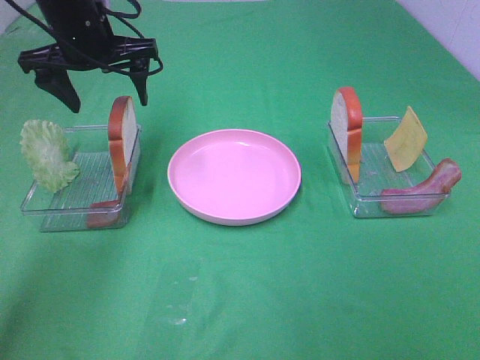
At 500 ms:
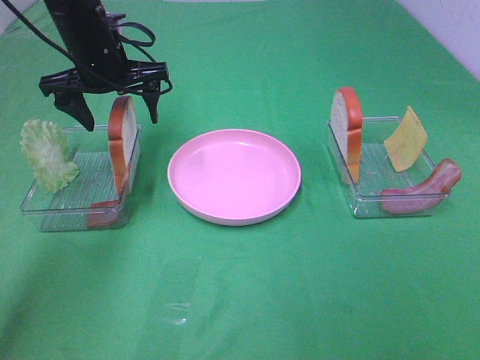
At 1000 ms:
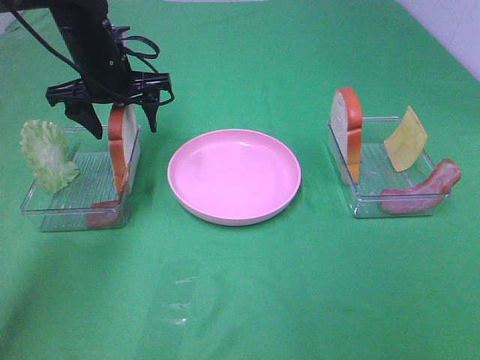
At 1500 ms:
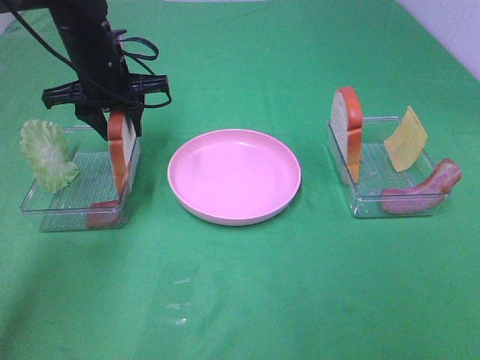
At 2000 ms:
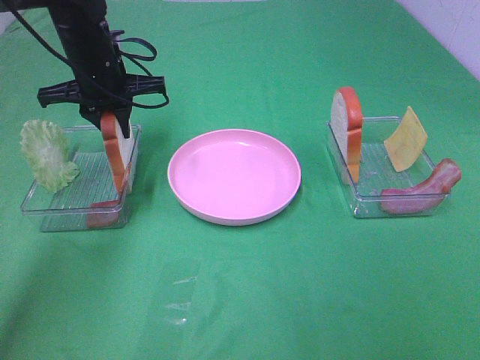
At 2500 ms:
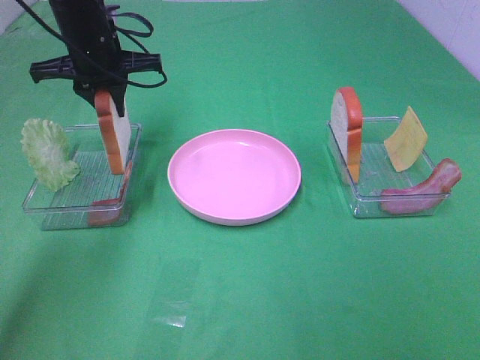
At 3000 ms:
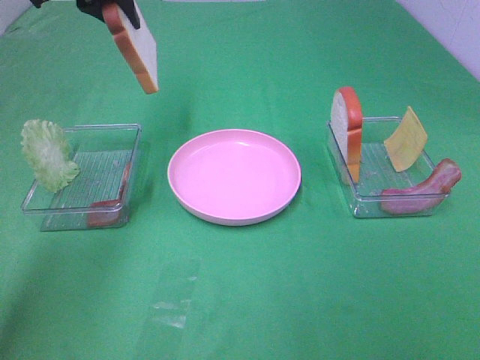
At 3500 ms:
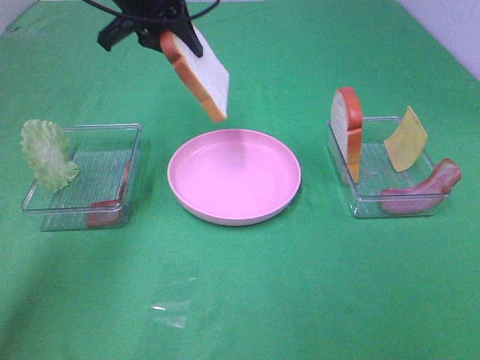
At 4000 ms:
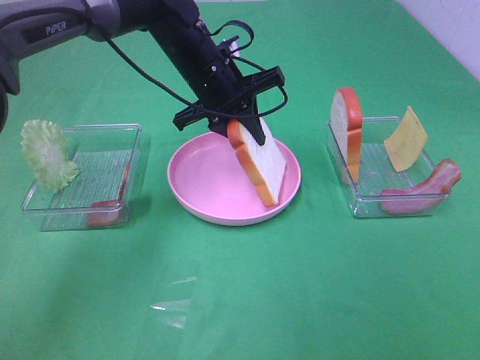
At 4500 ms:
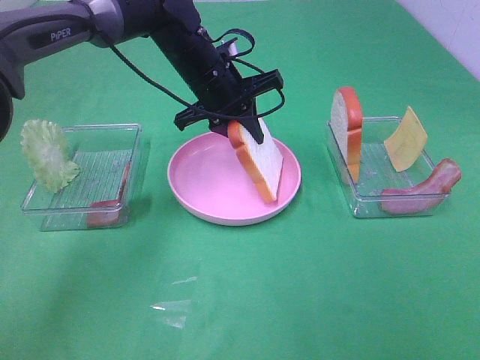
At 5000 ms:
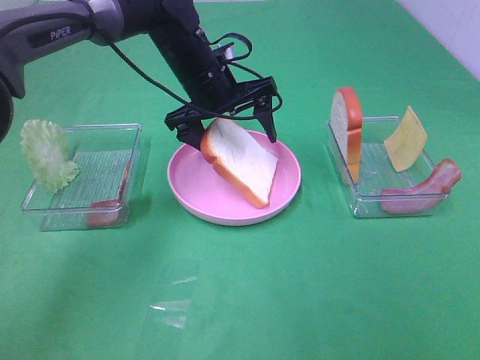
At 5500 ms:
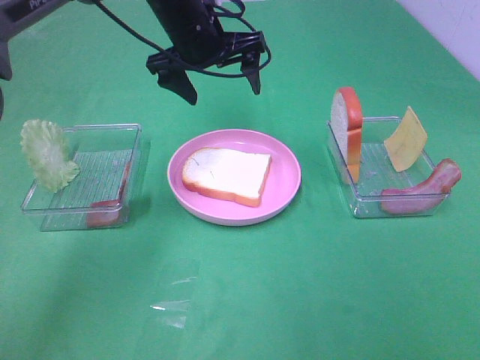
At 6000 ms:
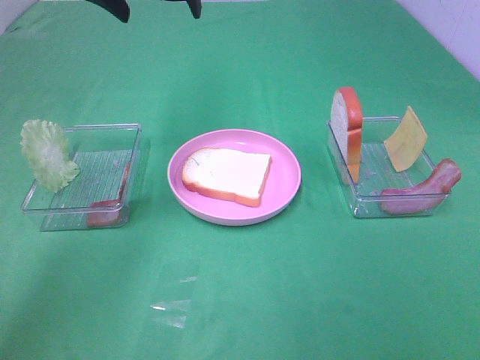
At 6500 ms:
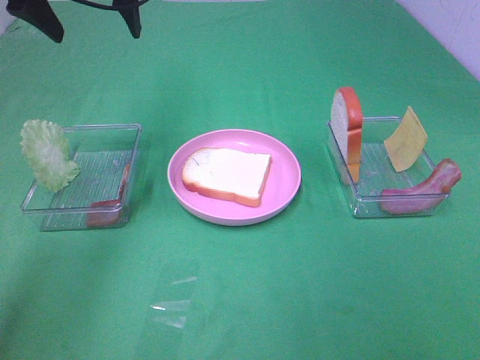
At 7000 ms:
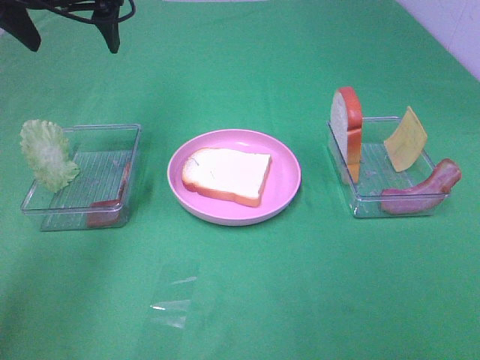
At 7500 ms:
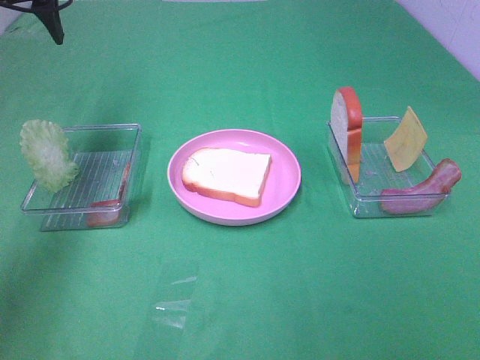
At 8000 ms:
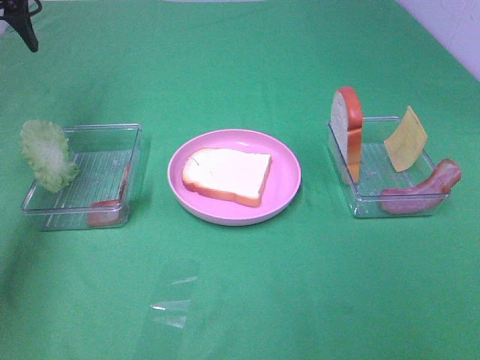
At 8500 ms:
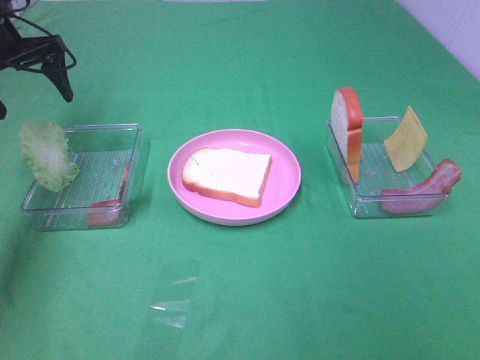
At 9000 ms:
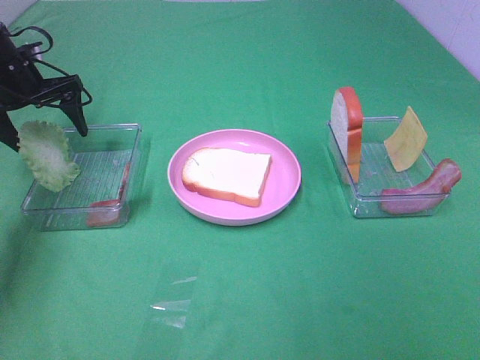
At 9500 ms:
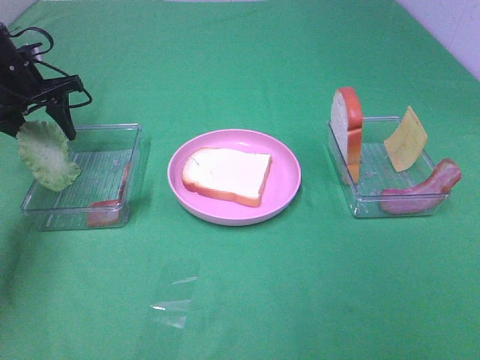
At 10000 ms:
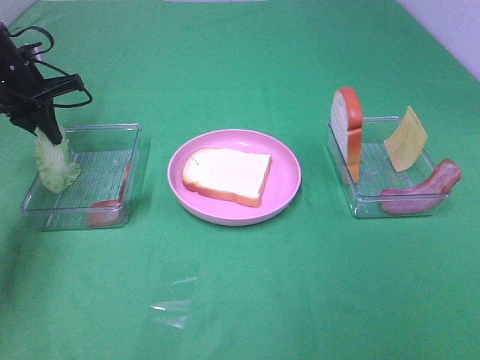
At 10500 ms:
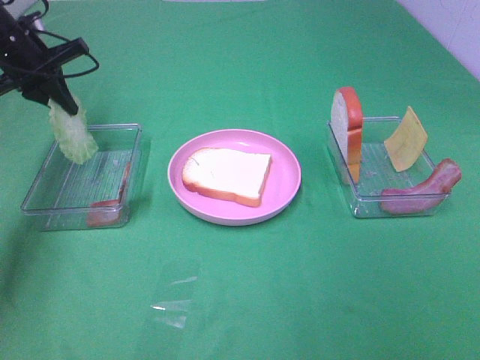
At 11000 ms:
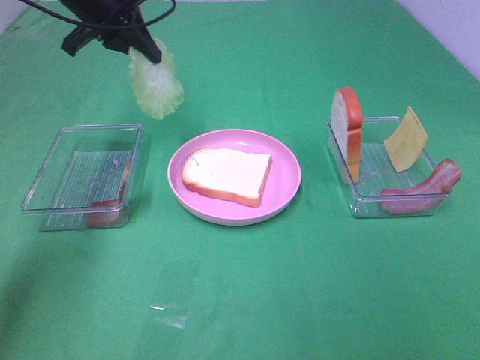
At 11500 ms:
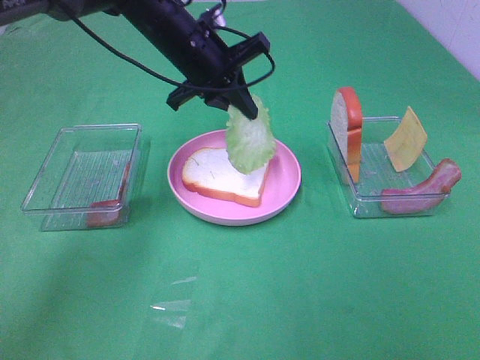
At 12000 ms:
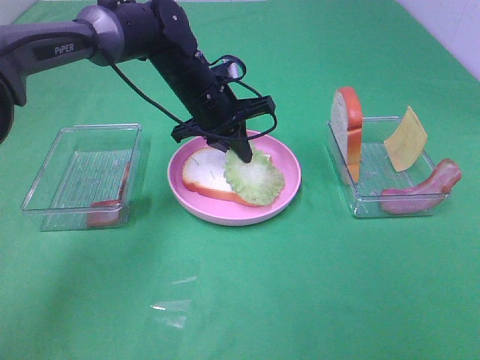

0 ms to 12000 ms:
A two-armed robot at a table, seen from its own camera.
Task of the whole recording: Make sandwiches.
Step, 0 ms to 2000 ms: Left hand:grab the bread slice.
Step, 2500 ms to 5000 ms: Left hand:place the bread slice on the plate.
Step, 5500 ms to 10000 ms: Left hand:grab the lettuce slice.
0 ms to 2000 ms: The left gripper shifts some 5 cm downward, and closes up.
2000 ms to 4000 ms: The left gripper travels to the right by approximately 15 cm, and reaches some 15 cm upward, then returns.
4000 ms to 6000 ms: The left gripper goes approximately 20 cm upward and to the left, and opens up.
6000 ms to 8000 ms: The left gripper travels to the left by some 20 cm.
8000 ms to 10000 ms: The left gripper travels downward by about 15 cm, and closes up.
10000 ms to 12000 ms: The left gripper shifts some 25 cm to the right.

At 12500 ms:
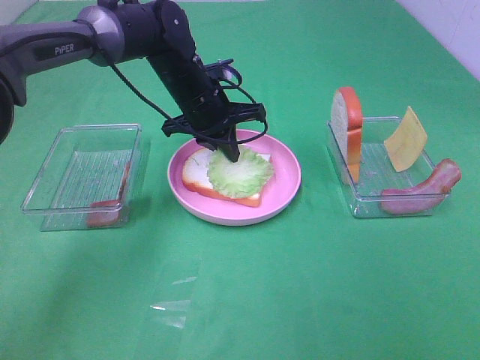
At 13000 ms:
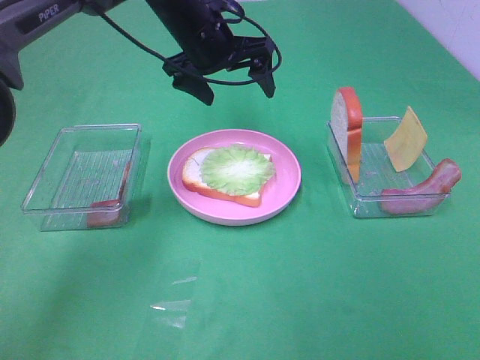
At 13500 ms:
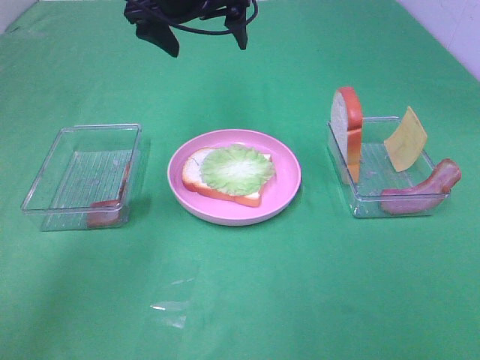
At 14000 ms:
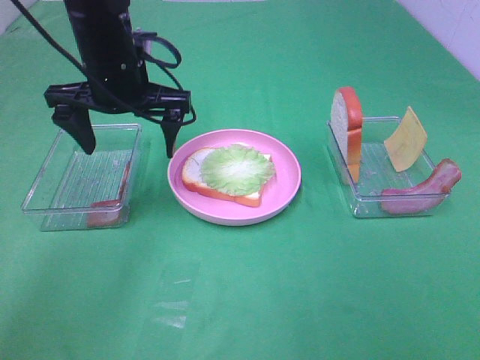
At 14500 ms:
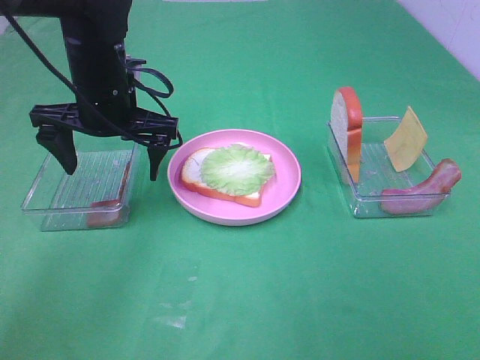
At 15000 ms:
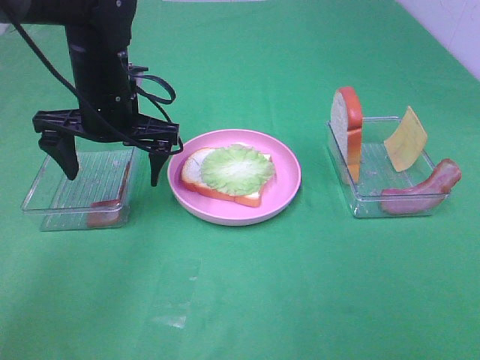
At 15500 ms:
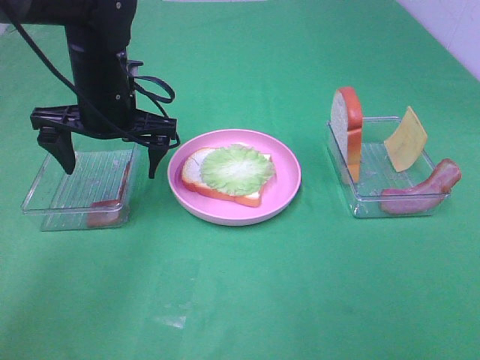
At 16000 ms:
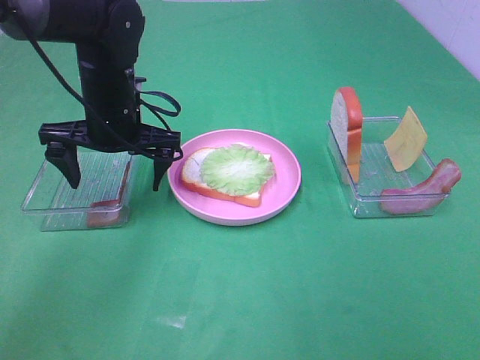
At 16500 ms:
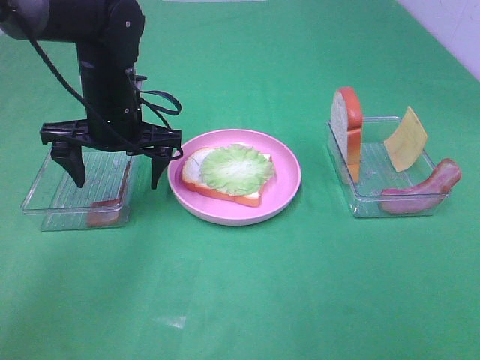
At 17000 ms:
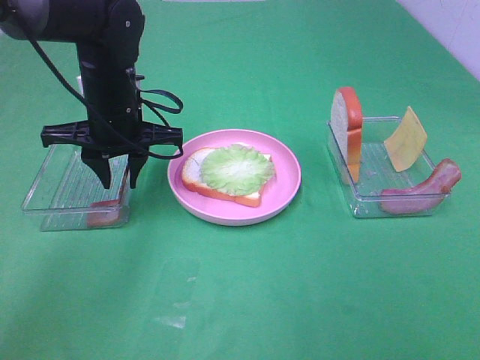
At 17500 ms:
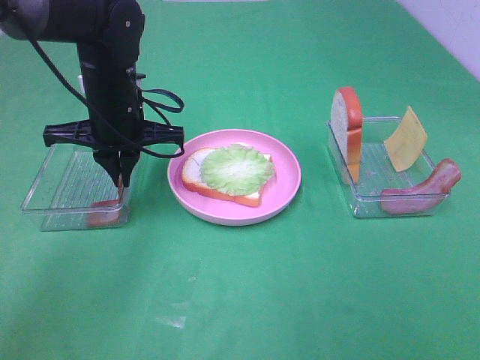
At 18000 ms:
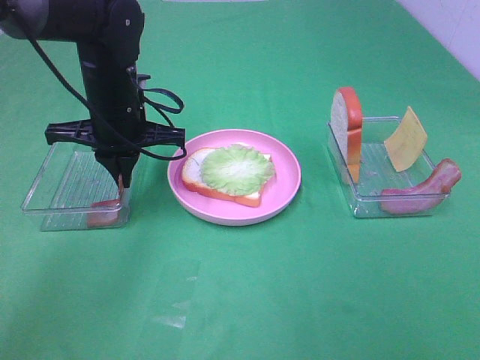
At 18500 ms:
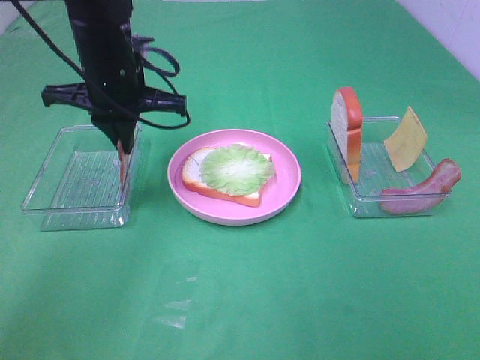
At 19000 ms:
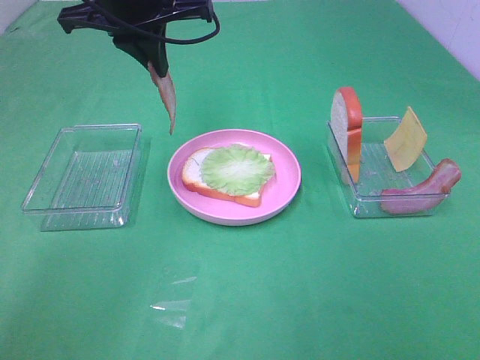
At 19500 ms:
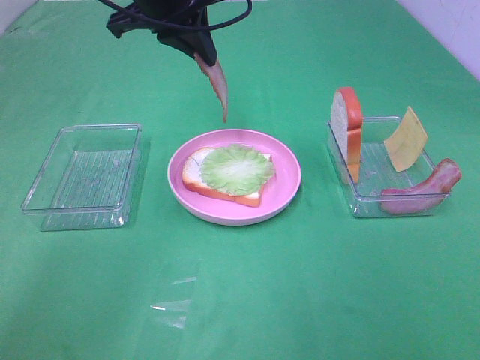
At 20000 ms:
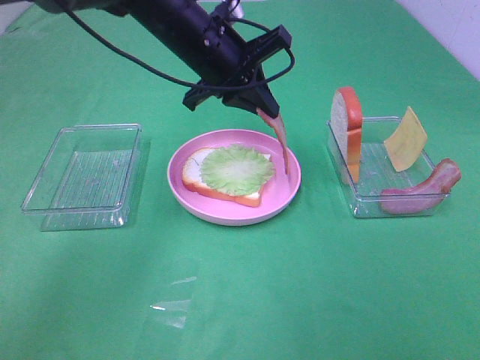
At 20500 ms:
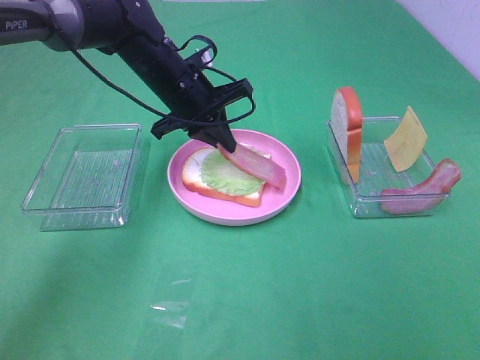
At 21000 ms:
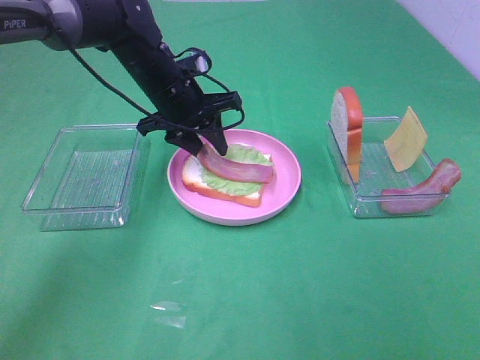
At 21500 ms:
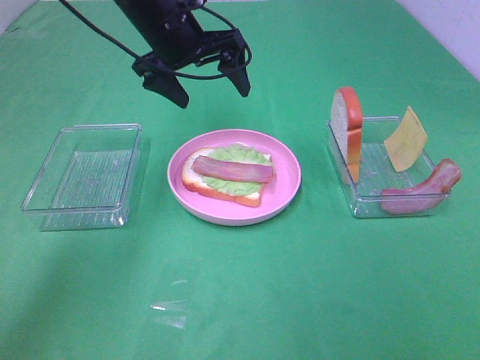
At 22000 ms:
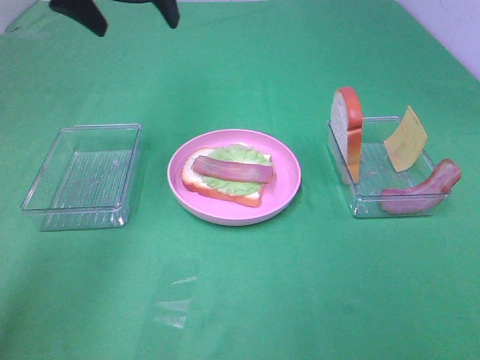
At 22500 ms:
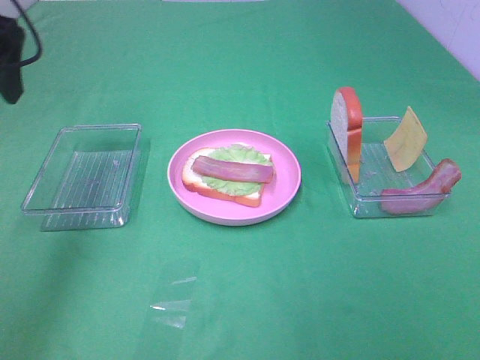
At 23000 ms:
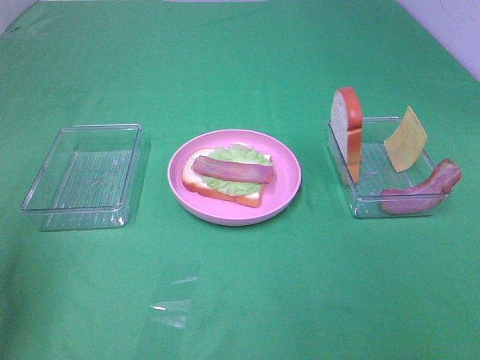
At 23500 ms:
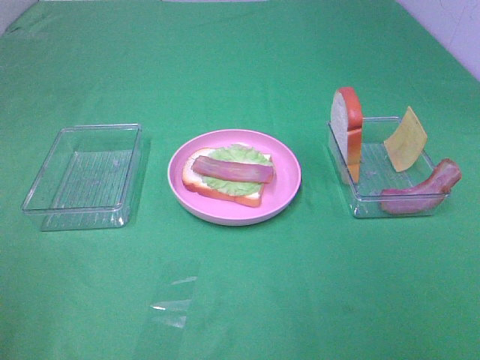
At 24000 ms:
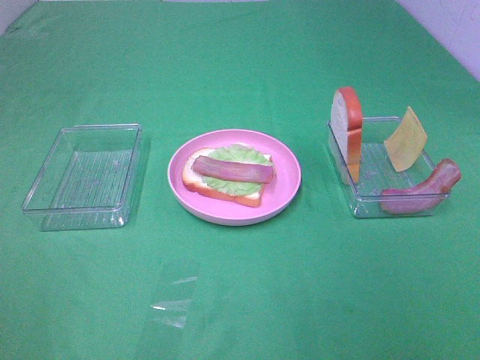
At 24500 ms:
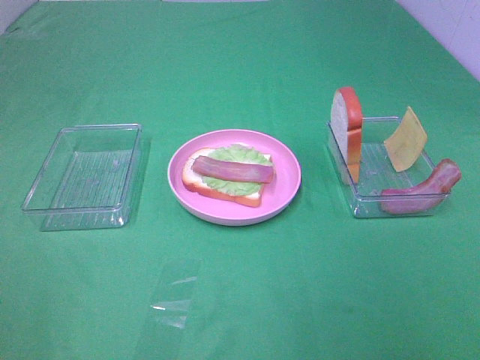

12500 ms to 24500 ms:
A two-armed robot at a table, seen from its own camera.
Task of the whole recording: Make sandwiches.
Step, 13000 ms to 18000 ms: Left hand:grab the bacon.
Step, 18500 ms to 21000 ms: Left hand:place bacon on lettuce slice.
12500 ms to 14500 ms: The left gripper shifts roughly 15 cm to the left, backward and upward, and opens its fingers.
14500 ms to 16500 ms: The grippers move only a little.
16500 ms to 18500 ms: The left gripper shifts some 5 cm upward, and closes its fingers.
18500 ms to 20500 ms: The left gripper heads downward and forward, covering about 10 cm.
20500 ms to 22500 ms: The left gripper goes approximately 30 cm to the left, upward and backward, and opens its fingers.
22500 ms to 24500 ms: The left gripper goes about 30 cm backward.

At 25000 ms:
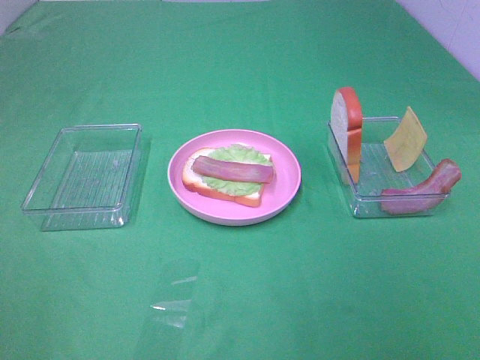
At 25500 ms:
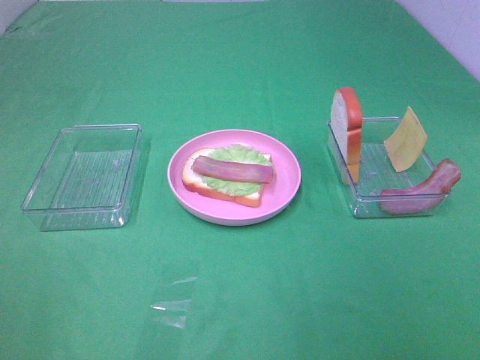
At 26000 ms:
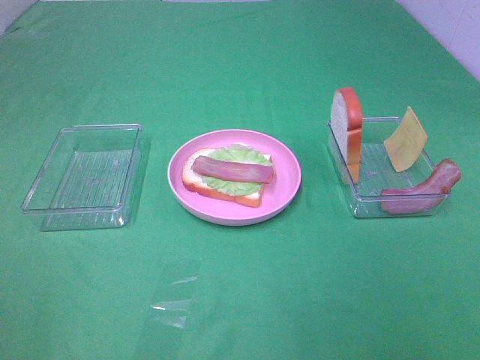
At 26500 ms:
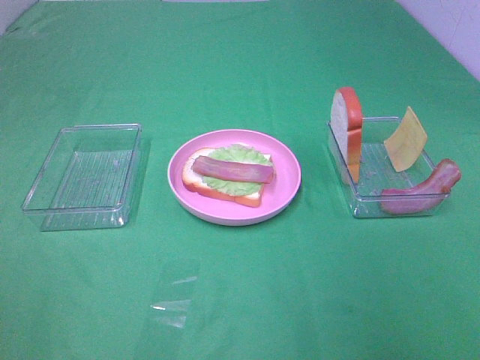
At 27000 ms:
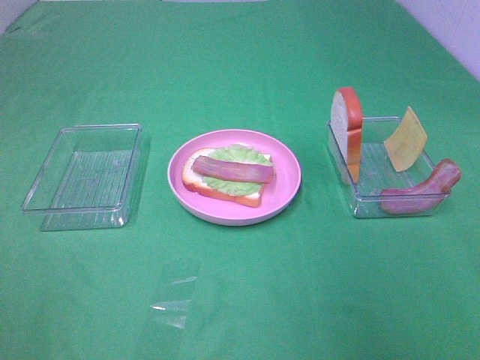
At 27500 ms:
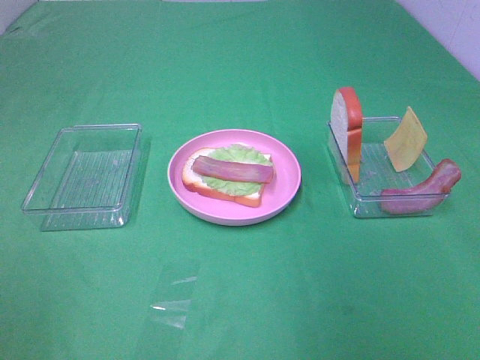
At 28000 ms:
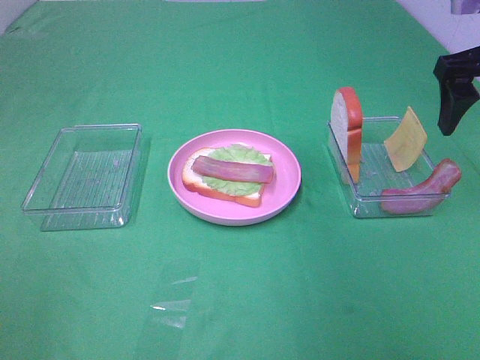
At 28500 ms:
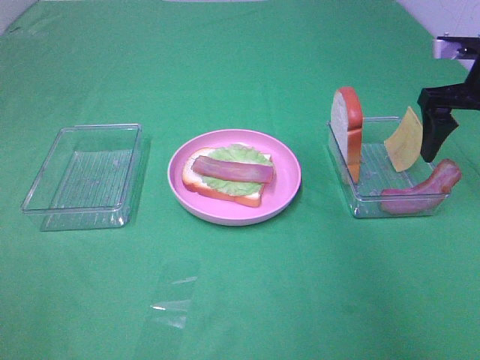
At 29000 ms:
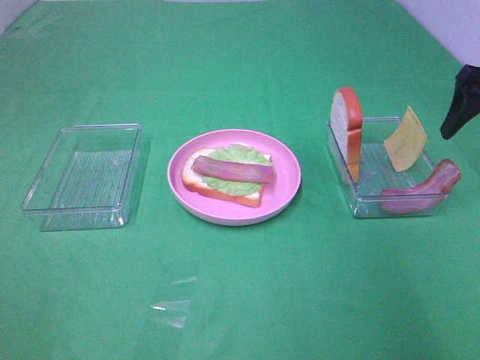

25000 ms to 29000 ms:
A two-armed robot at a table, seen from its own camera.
Task of the whole recording: Make sandwiches.
27000 ms to 29000 ms: The right gripper is displaced forward by approximately 20 cm.
